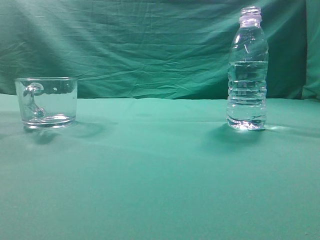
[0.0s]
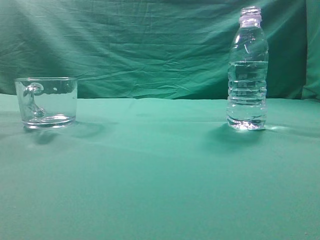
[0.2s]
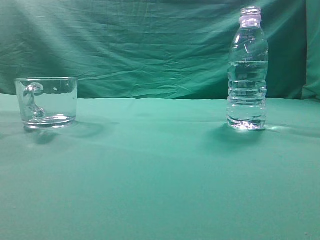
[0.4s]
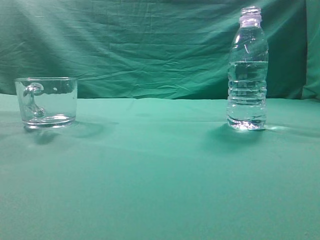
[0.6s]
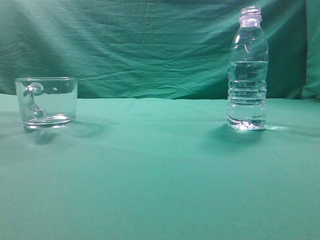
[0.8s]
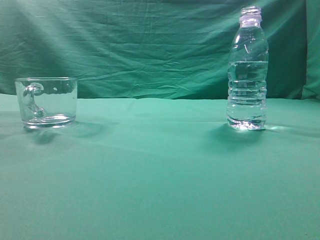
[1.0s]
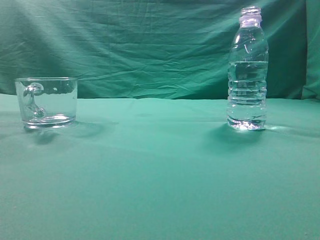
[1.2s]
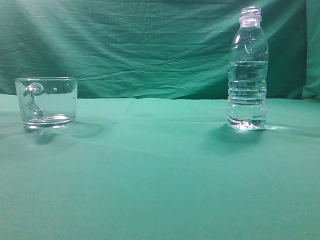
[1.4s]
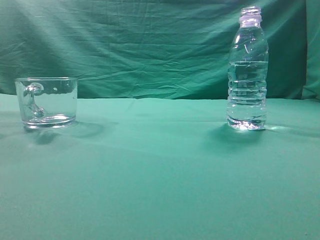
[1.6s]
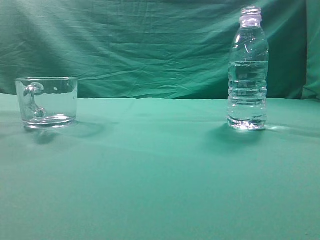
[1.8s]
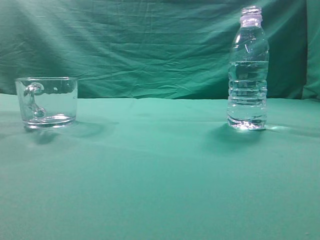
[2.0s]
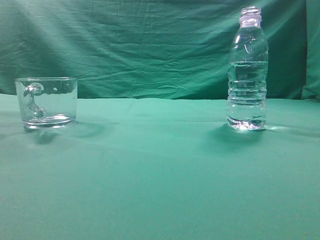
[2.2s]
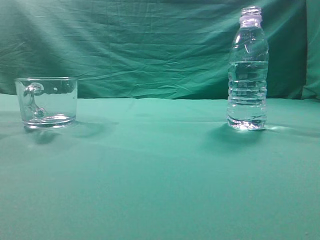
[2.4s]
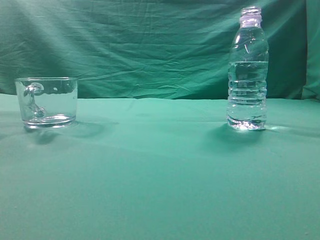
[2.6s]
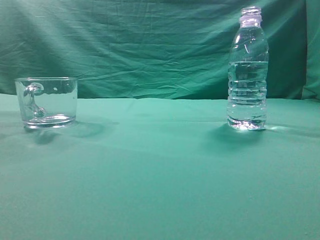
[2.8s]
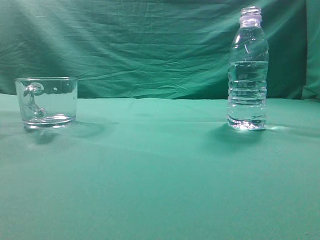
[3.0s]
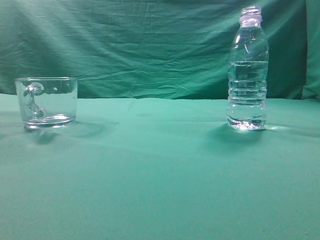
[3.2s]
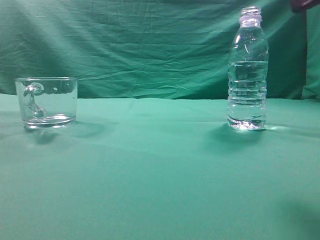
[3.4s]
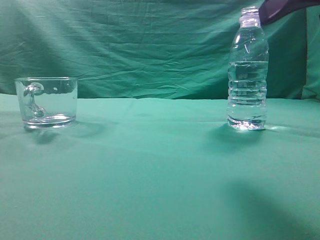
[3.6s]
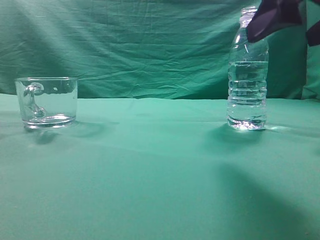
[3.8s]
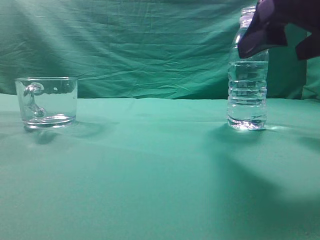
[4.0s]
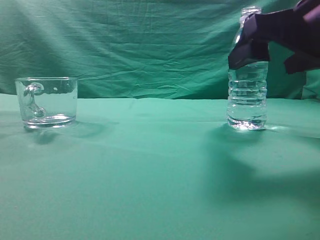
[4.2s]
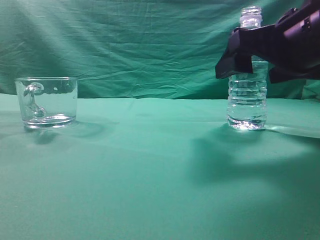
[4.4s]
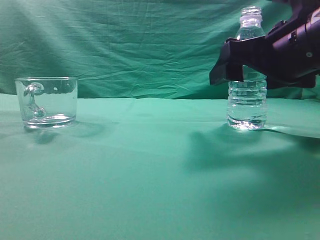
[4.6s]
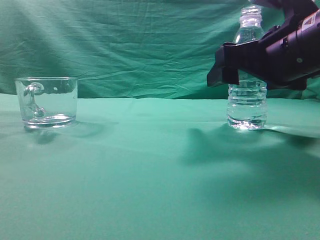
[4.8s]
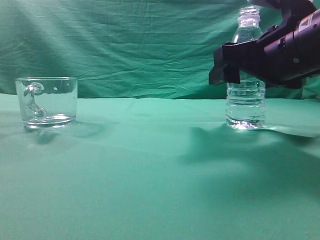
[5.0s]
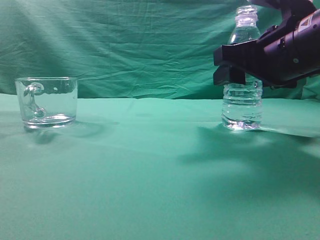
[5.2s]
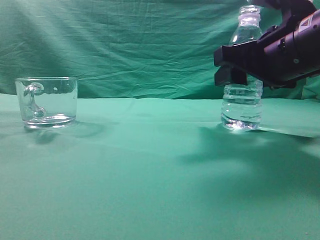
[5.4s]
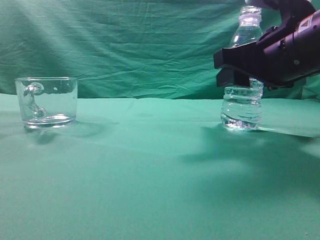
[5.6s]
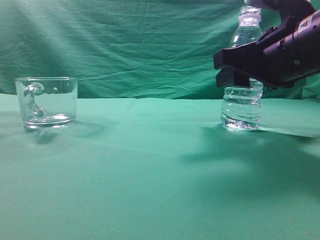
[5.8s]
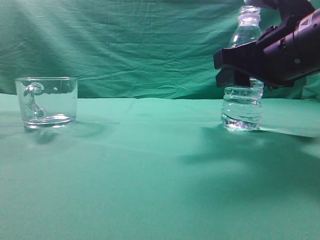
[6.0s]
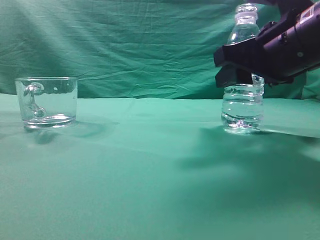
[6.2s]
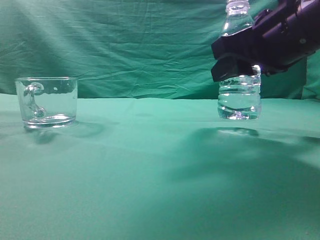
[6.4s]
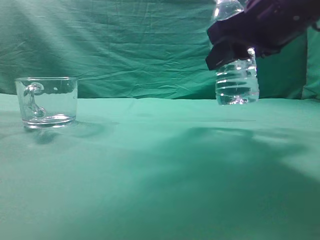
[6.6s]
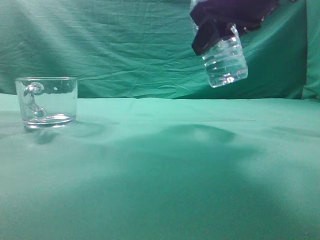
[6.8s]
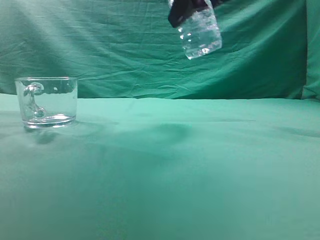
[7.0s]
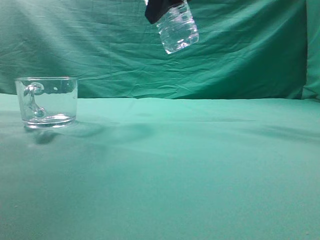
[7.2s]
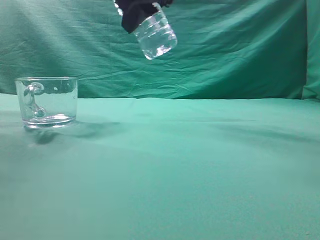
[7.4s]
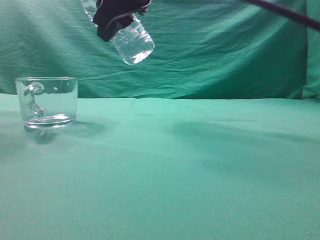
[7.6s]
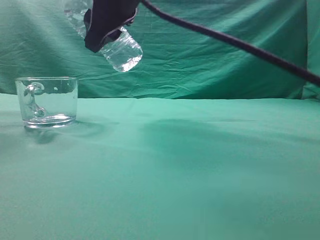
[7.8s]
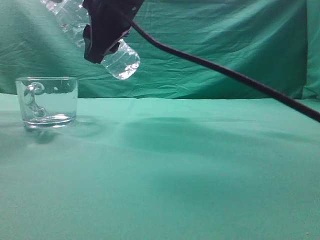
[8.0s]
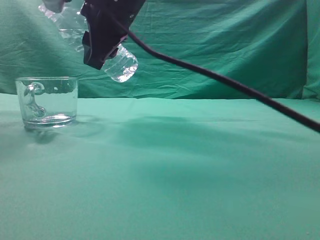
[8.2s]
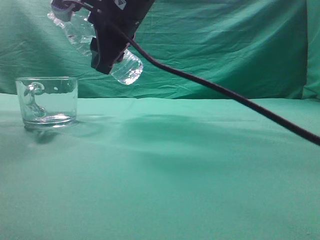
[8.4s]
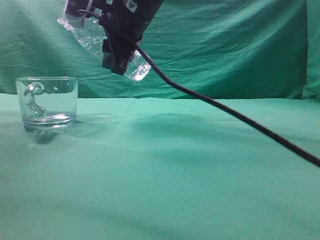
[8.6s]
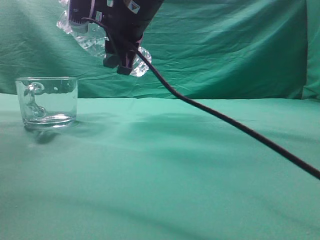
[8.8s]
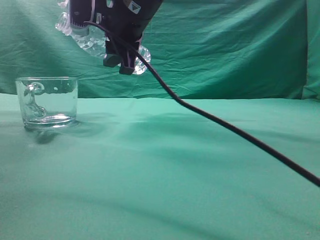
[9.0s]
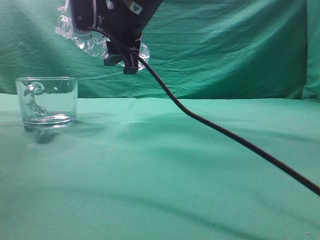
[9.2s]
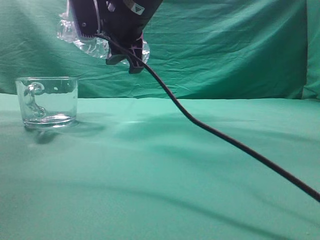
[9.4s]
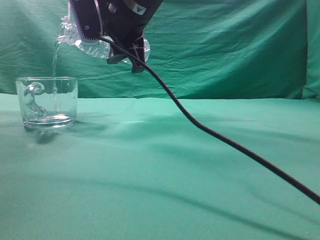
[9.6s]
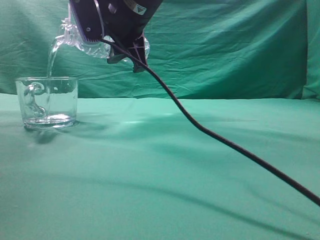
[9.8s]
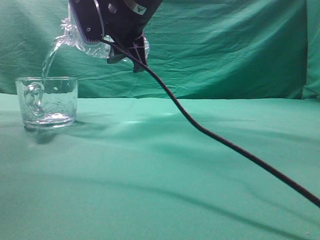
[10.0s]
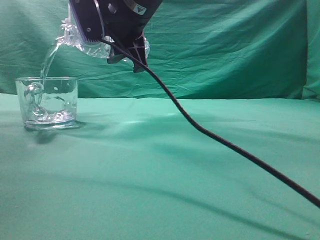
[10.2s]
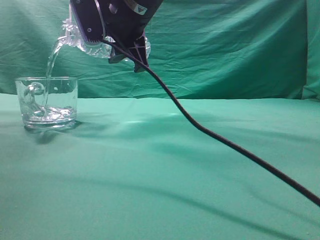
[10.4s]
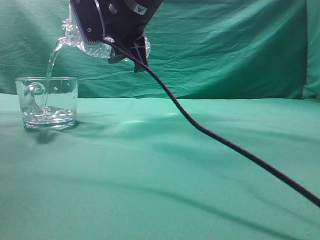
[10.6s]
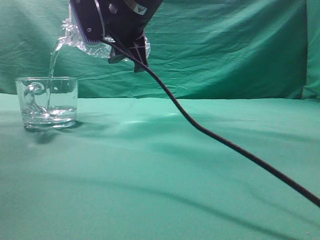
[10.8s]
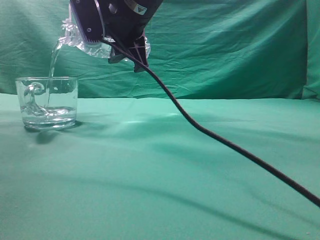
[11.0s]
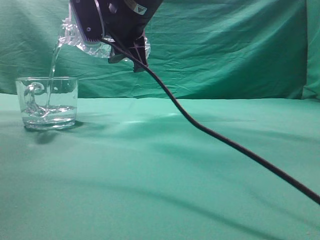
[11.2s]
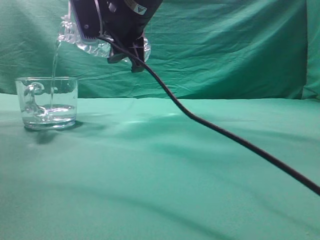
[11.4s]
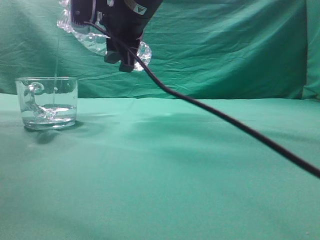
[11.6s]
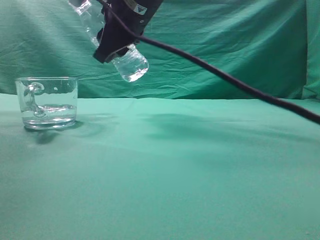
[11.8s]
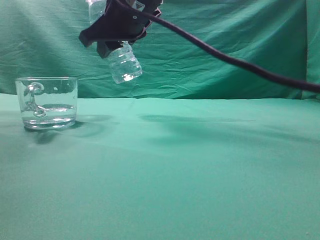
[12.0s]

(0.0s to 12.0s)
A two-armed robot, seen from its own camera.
Task of the whole recording: pick up the water bottle and pour the water in it into the glass.
Step, 0.0s - 6.6s: Grasp the mineral water bottle.
Step, 6.8s - 11.8s: Pour water into the teacup.
3.0s - 4.4s: The right gripper shifts approximately 20 cm forward, downward and to the left, and opens.
4.4s - 6.0s: The right gripper closes.
6.0s - 7.6s: The right gripper heads to the left and upward, covering about 20 cm.
7.6s - 9.0s: The right gripper is displaced forward by about 5 cm.
9.0s - 10.4s: There are only small adjustments of the grippers.

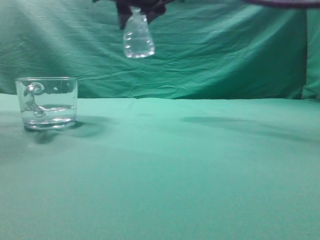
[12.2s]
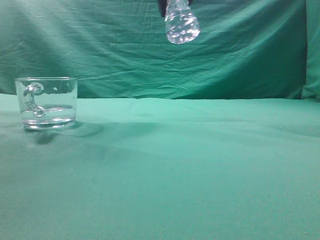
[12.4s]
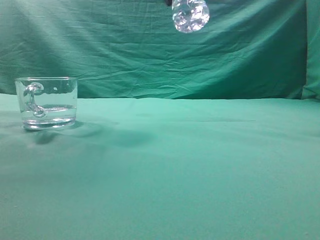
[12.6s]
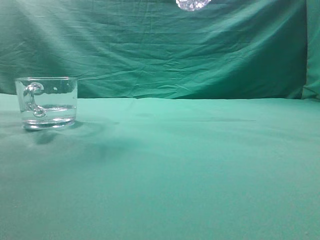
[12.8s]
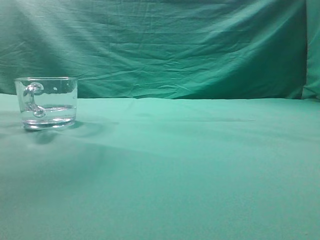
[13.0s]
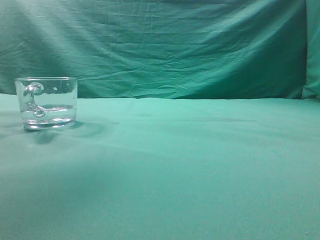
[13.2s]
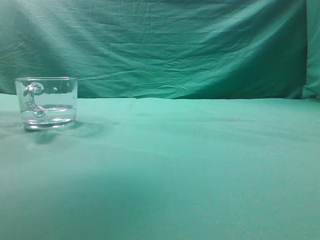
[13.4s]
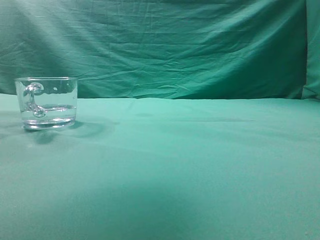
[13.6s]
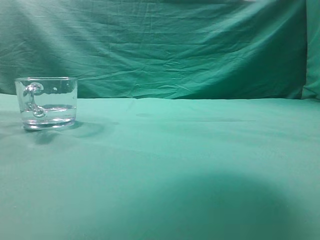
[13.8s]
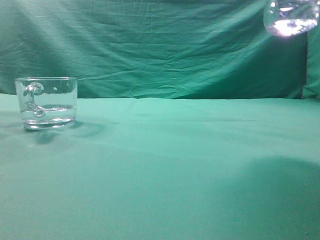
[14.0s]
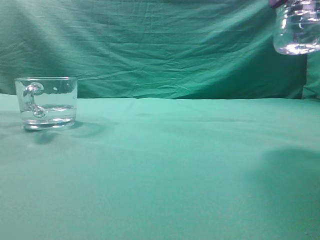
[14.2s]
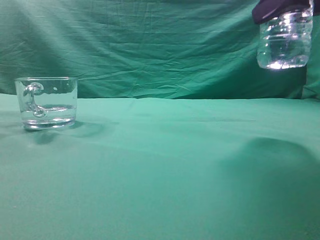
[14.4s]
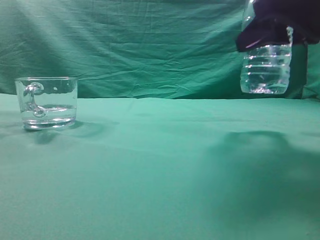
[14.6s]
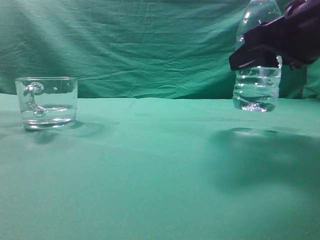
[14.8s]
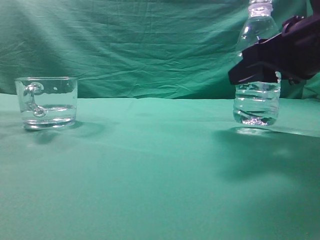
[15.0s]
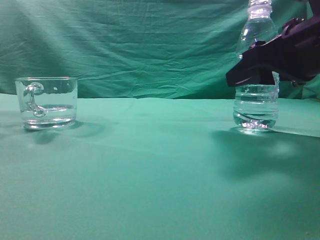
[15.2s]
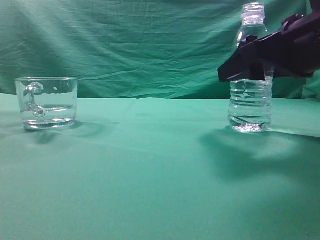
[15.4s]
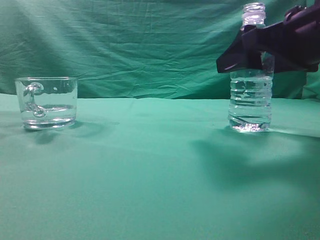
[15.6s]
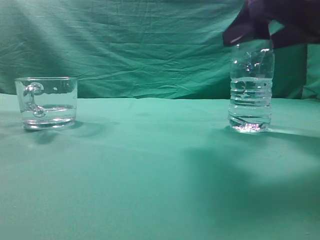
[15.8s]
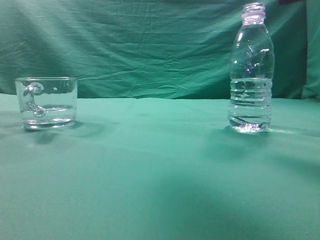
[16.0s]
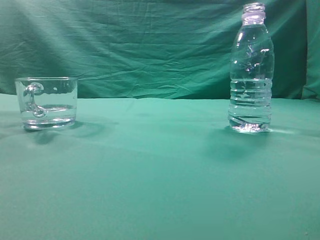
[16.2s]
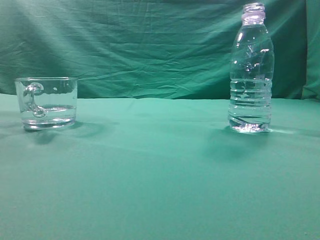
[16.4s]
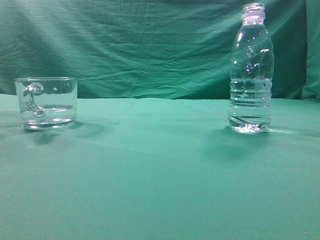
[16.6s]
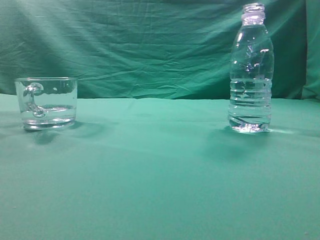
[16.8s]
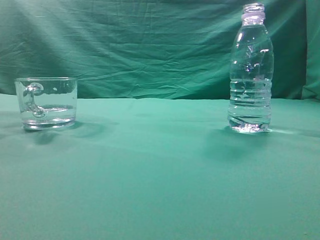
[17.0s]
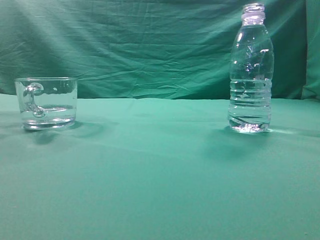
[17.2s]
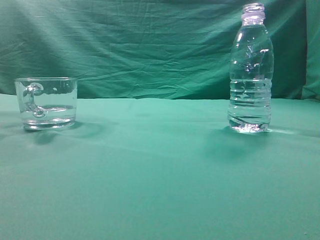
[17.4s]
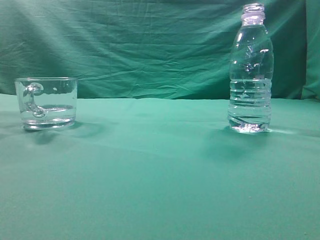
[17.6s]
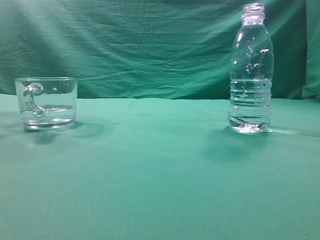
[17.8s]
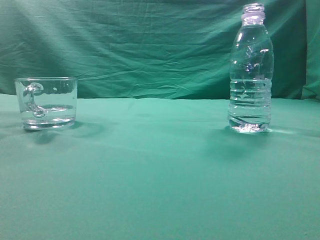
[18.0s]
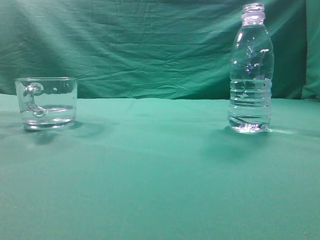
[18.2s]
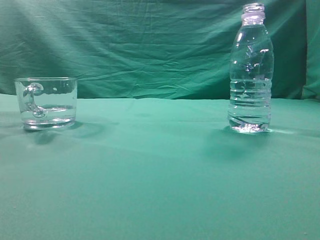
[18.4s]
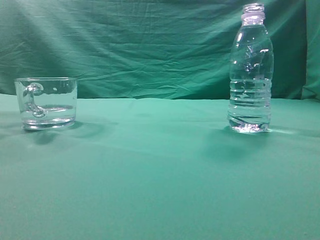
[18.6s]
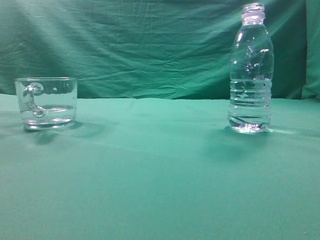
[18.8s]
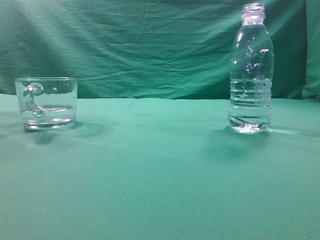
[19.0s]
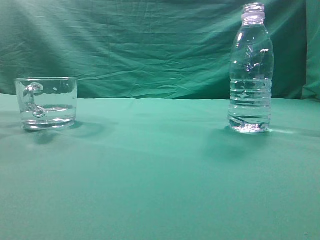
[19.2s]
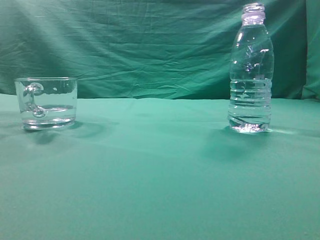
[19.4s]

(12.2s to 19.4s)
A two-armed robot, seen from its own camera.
Task of the whole recording: pick up the water bottle and pour the water in it into the glass.
12.2s - 13.6s: The right gripper is displaced backward, to the right and upward by about 20 cm.
13.6s - 15.0s: The right gripper travels downward by some 20 cm.
15.0s - 16.6s: The right gripper goes roughly 25 cm upward and backward, and closes its fingers.
